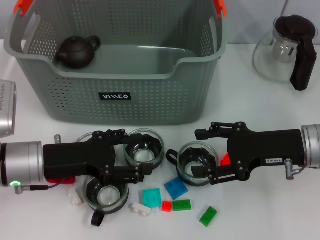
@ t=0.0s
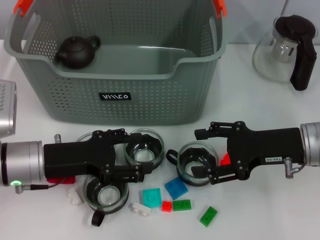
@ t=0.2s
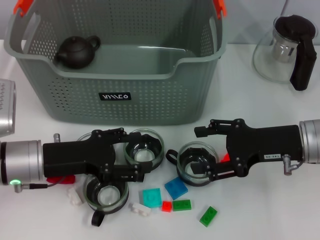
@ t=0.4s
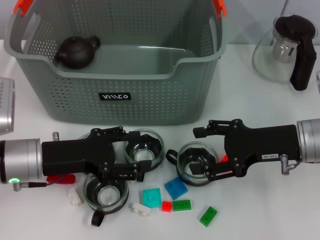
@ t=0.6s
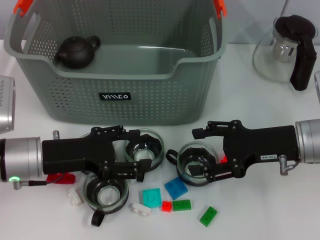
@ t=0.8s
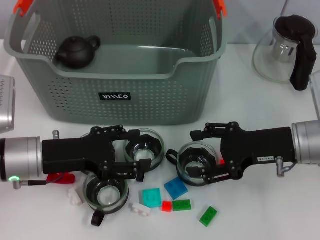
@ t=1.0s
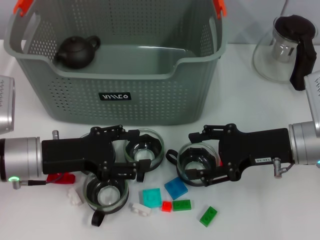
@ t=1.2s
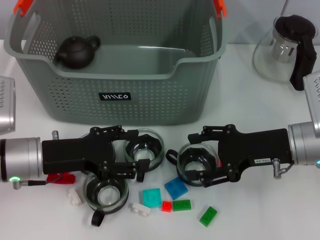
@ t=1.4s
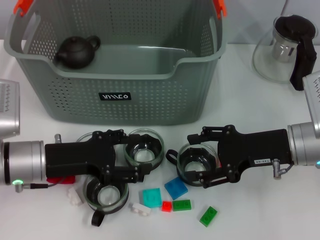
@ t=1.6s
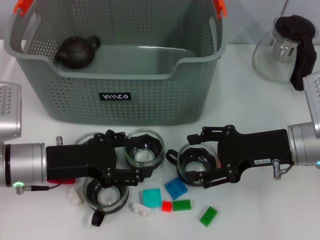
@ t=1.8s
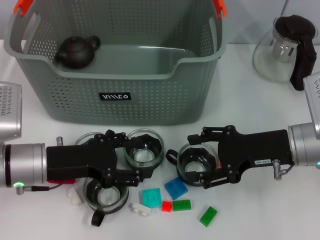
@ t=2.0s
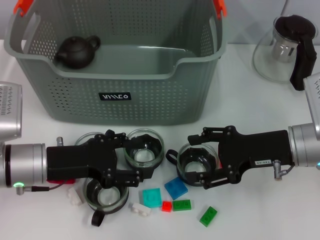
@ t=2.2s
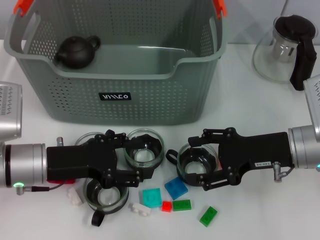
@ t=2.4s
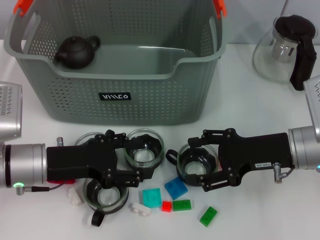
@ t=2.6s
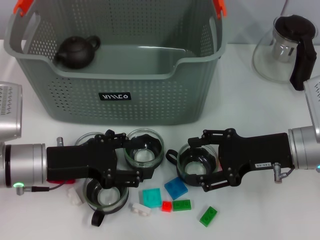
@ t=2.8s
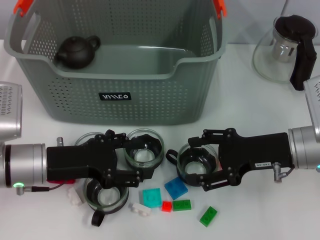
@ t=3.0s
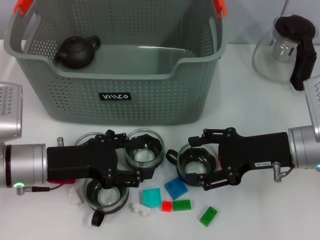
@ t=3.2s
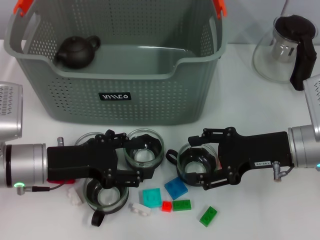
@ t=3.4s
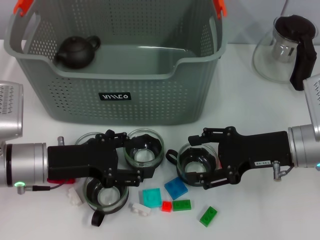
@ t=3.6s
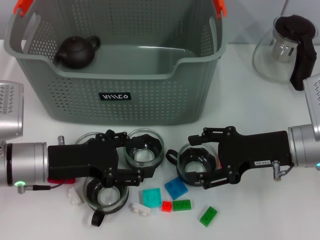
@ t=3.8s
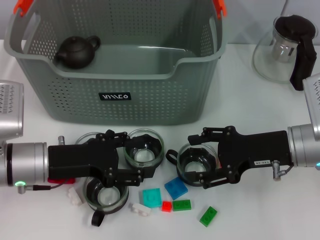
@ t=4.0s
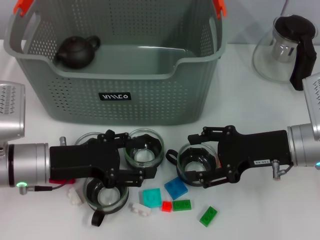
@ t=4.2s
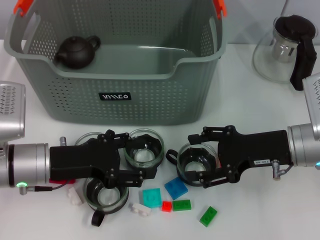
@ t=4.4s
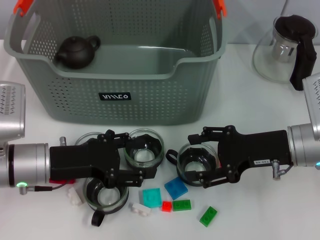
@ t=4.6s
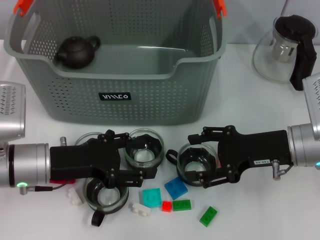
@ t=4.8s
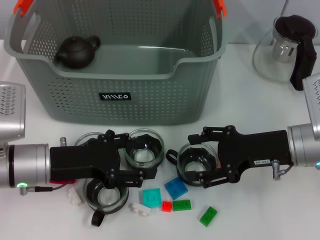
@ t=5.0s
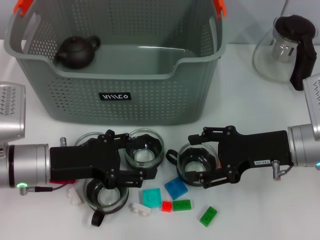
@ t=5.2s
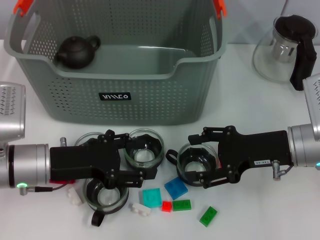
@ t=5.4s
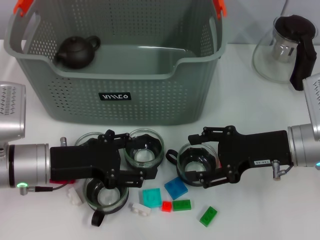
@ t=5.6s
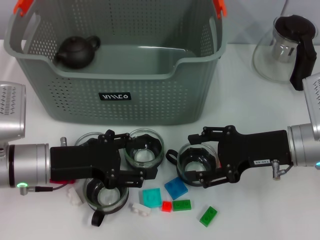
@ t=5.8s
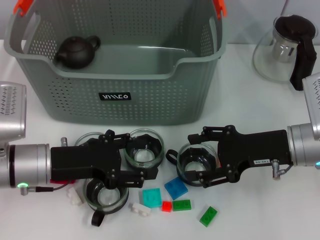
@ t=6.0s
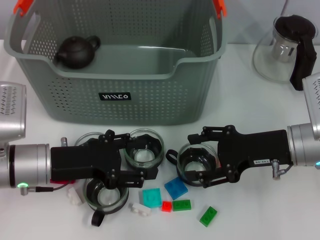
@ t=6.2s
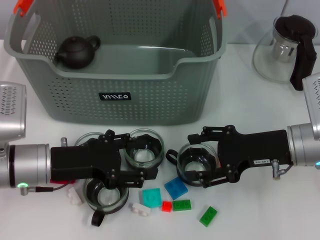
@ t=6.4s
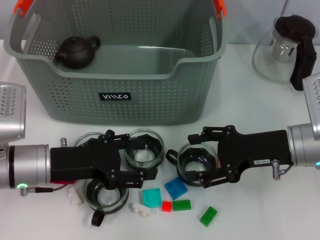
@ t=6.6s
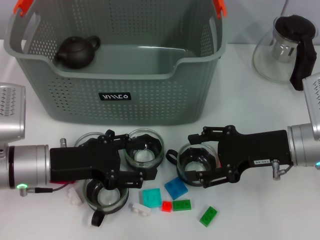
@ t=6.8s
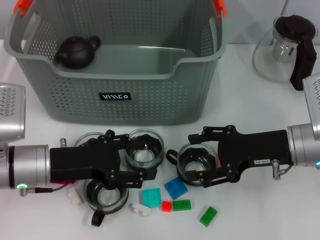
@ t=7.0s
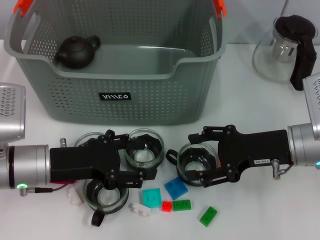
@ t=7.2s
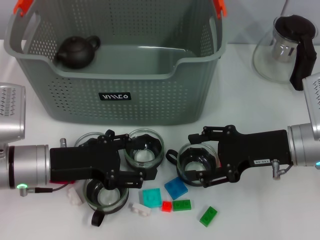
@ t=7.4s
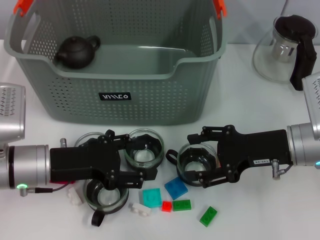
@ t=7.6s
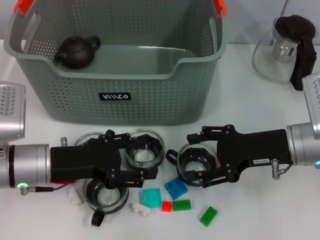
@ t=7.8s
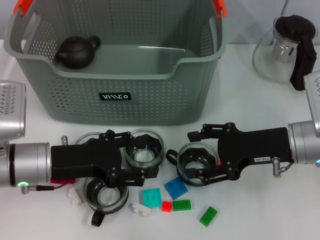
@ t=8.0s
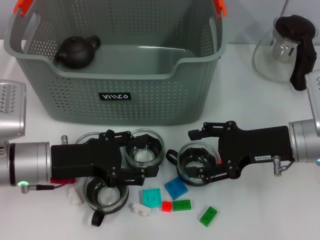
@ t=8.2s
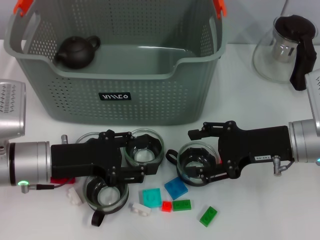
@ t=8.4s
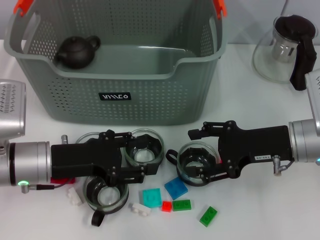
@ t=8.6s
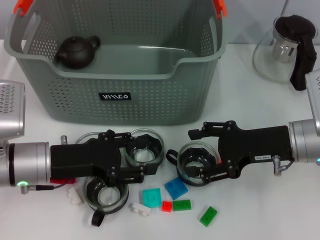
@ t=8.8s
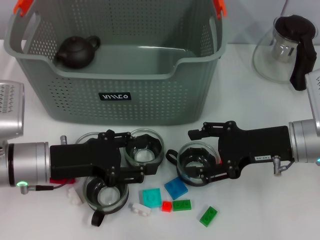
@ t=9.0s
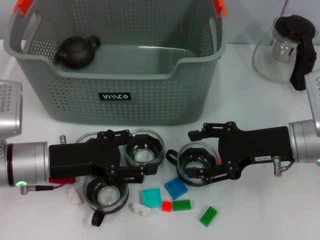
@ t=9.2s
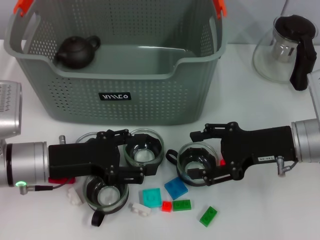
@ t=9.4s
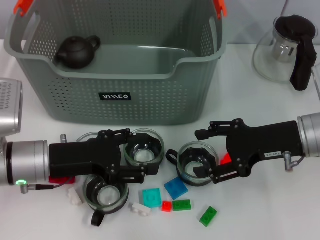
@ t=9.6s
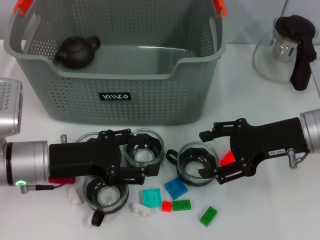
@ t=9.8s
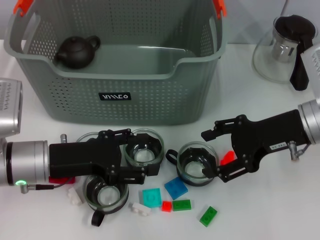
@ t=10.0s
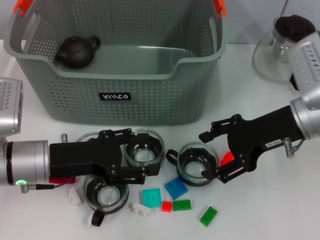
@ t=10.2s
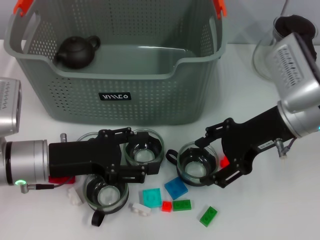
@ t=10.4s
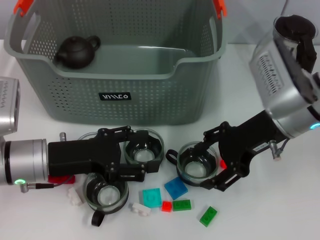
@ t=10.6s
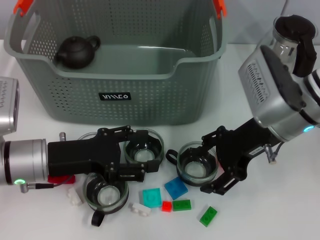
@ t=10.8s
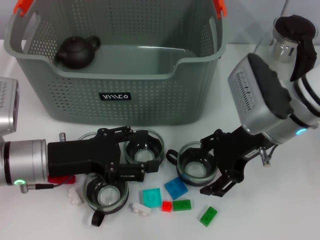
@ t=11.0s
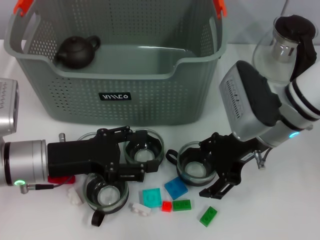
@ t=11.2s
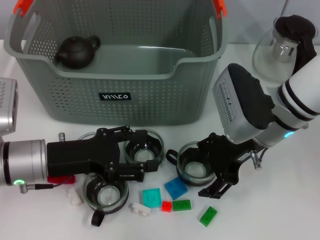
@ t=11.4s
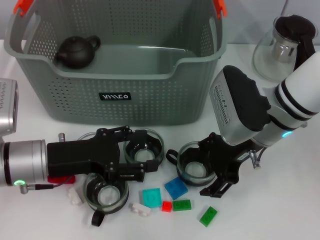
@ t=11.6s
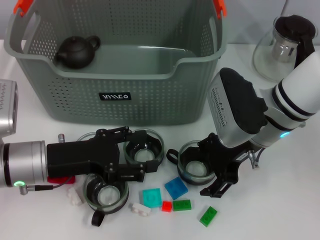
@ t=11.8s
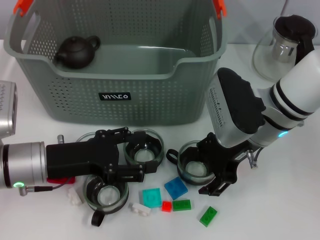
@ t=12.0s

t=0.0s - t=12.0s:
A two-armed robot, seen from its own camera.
Task of the whole recording: pick up the teacup on the table and place it into the storage bin, pick up the block on the table and place it into the storage bin.
t=0.0s - t=1.6s: There are only small adjustments of the grippers.
t=1.6s - t=9.0s: Both grippers stay about where they are.
t=9.0s - t=10.4s: The right gripper goes approximately 5 cm upward.
t=10.4s - t=12.0s: The right gripper heads to the left, covering about 5 cm.

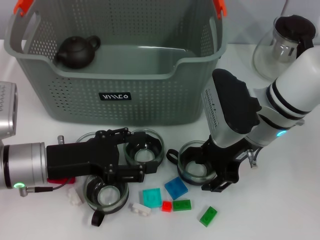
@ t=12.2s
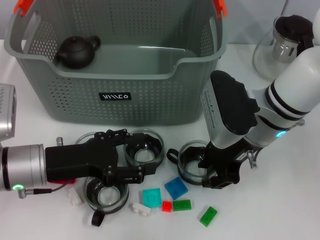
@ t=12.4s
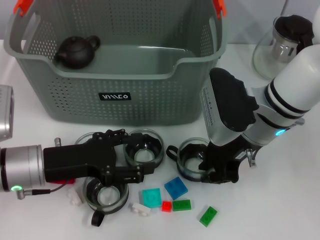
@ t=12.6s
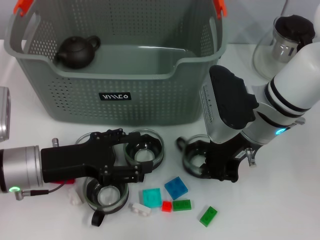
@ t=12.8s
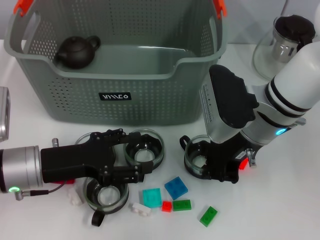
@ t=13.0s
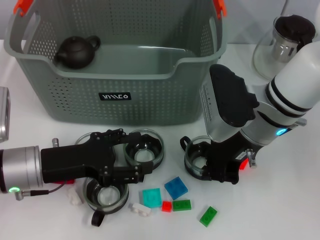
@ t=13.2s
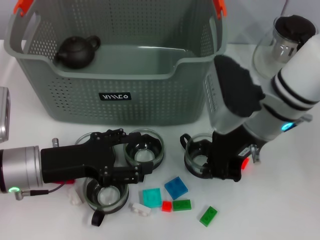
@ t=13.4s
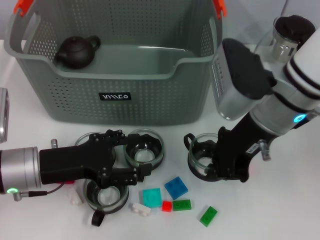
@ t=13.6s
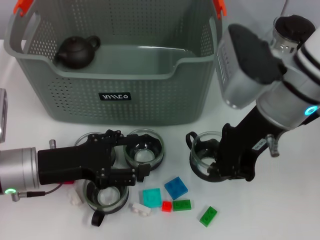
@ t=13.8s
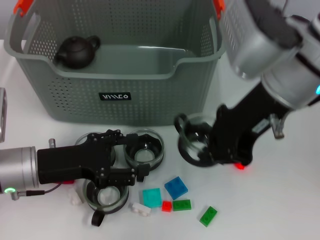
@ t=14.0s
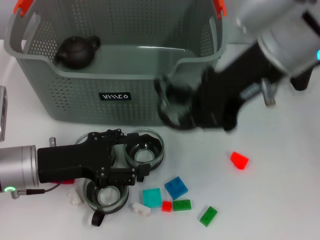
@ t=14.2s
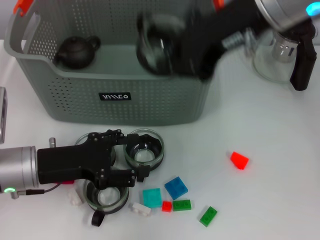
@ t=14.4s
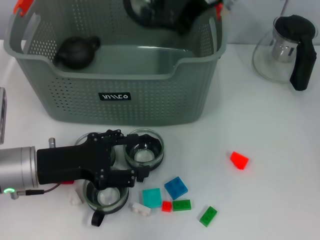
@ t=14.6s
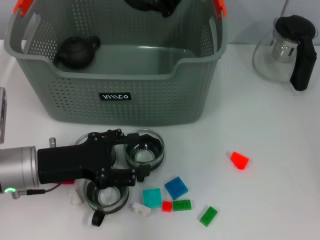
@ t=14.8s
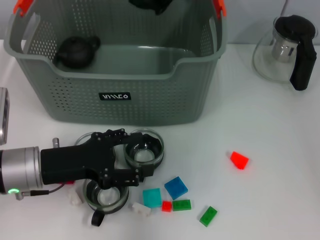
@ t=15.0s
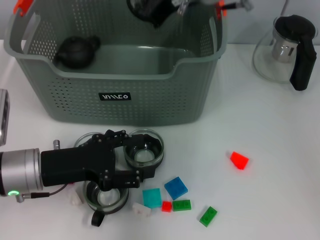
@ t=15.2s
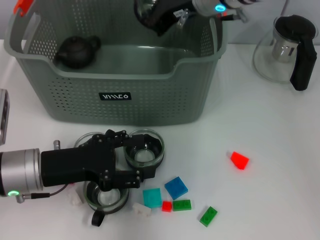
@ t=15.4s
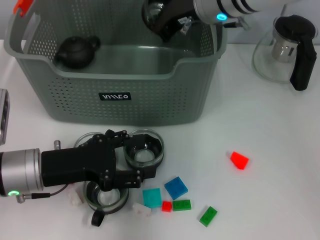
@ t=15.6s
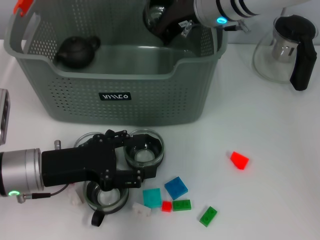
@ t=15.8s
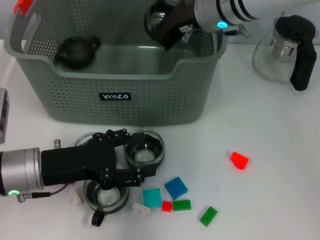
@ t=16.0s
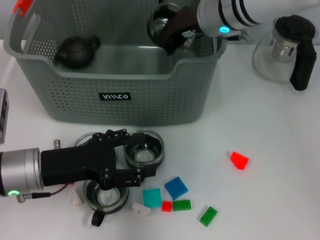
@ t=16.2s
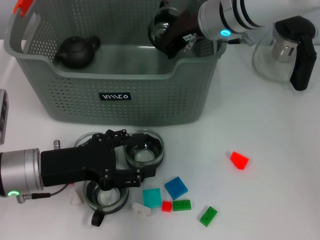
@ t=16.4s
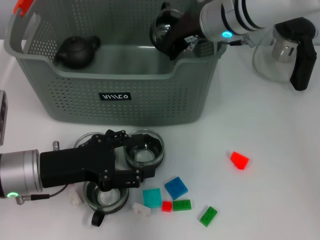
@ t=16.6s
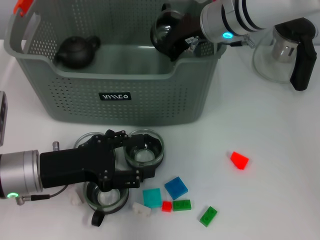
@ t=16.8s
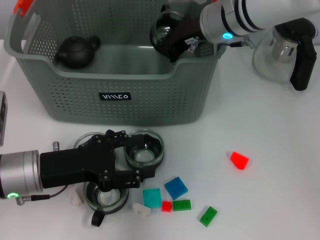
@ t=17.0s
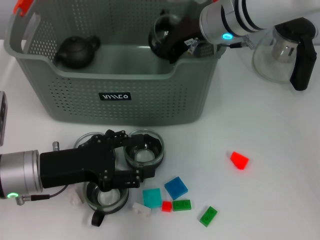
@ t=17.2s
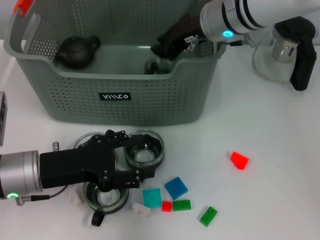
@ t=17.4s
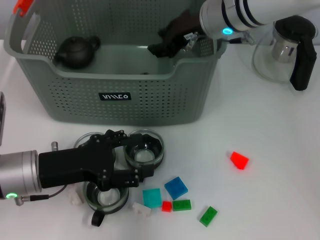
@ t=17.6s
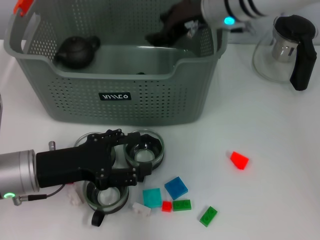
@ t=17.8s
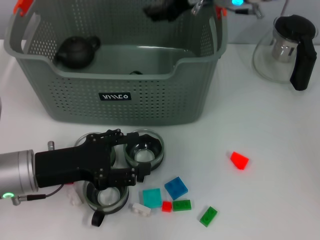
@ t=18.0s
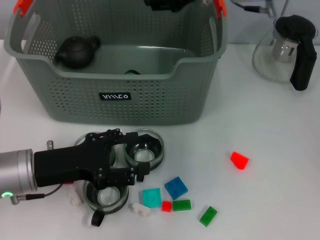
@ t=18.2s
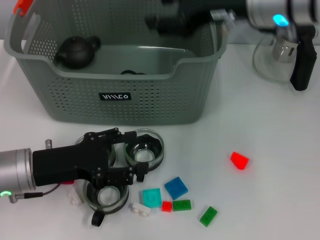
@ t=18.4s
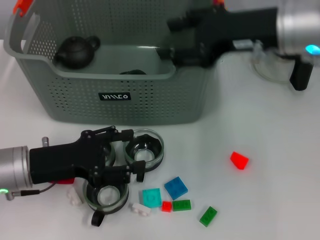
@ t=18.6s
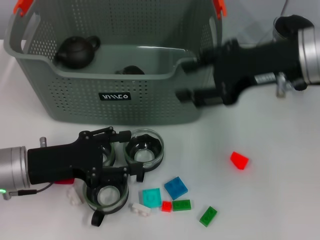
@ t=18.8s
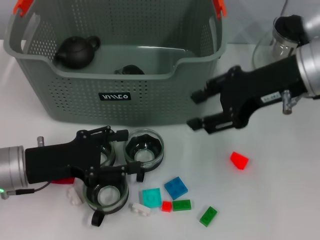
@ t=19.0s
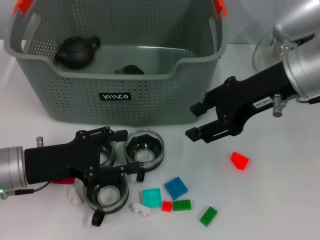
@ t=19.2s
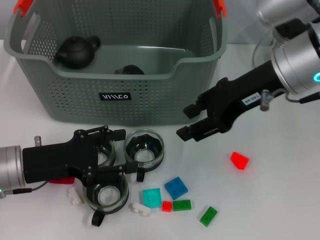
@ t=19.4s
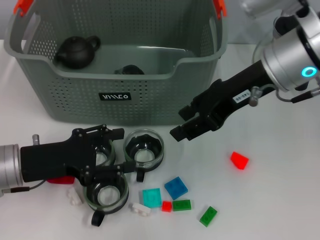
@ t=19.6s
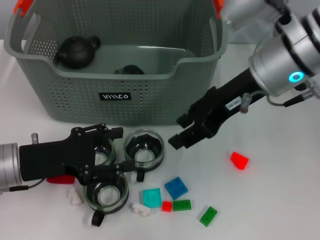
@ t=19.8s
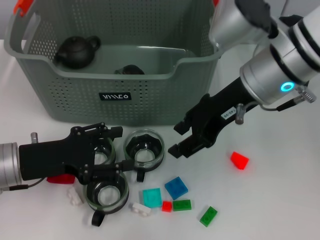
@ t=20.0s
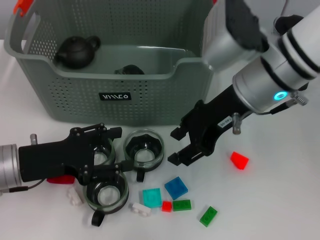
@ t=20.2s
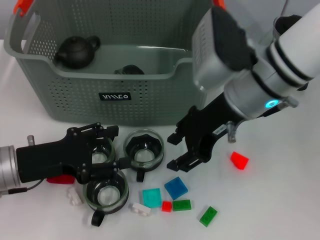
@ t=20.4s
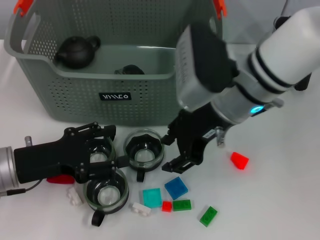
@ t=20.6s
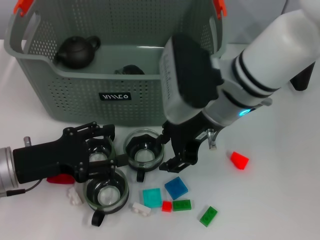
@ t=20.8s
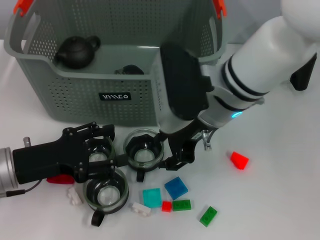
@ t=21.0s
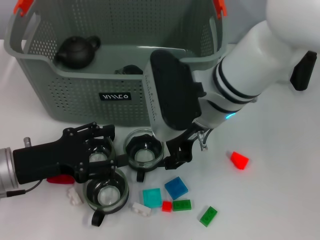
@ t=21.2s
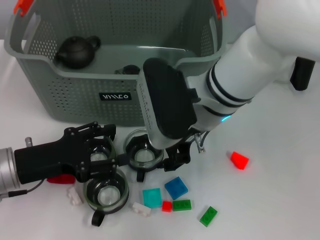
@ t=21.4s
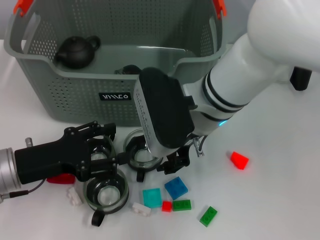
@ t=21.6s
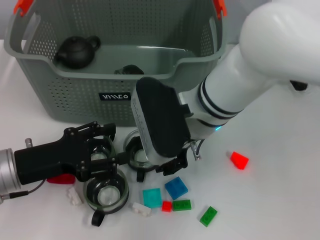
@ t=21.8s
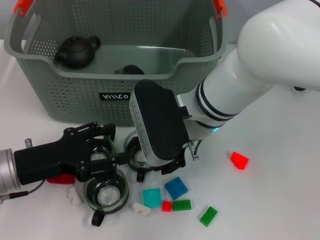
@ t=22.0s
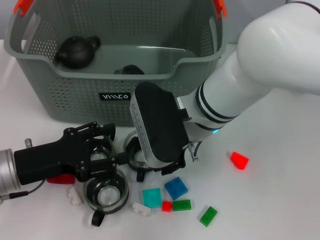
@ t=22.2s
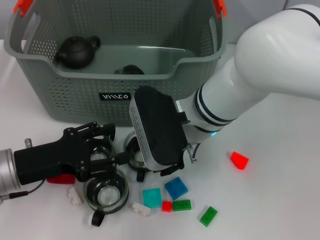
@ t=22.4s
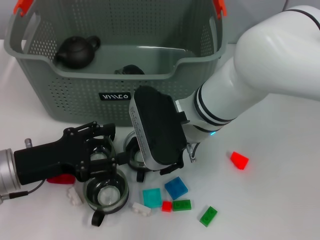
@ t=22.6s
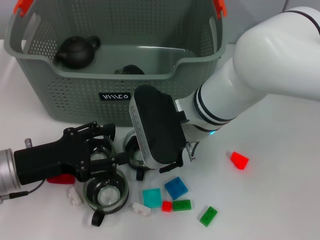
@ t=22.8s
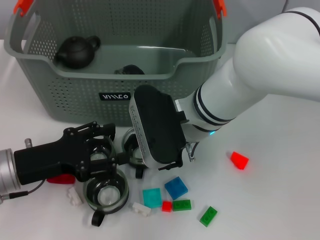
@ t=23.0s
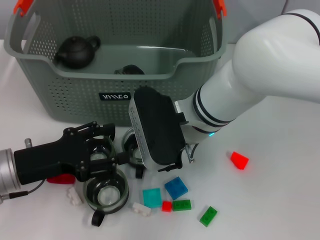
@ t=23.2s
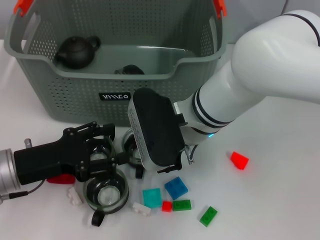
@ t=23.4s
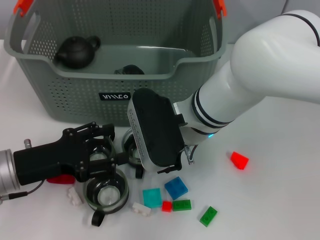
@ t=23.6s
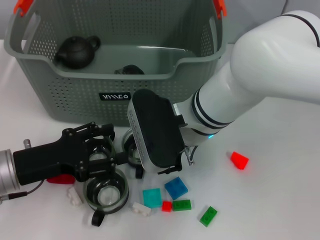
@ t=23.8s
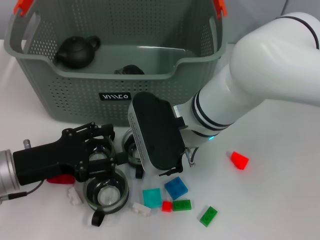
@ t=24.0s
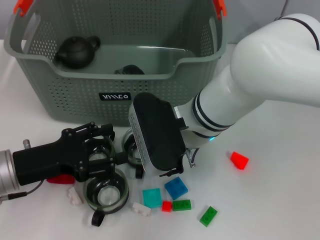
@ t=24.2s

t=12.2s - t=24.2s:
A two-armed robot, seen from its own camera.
Task of the whole recording: pick up the teacup on the table and place it into the storage bin, pick up the block on the table and place it into the storage bin.
Step, t=13.2s - t=17.4s: Place the cup in the storage box with right gripper.
t=12.2s - t=13.8s: The right gripper heads upward, covering approximately 10 cm, and closes up.
t=13.8s - t=15.2s: The right gripper travels forward and to the left by roughly 15 cm.
t=15.2s - t=16.6s: The right gripper goes approximately 5 cm downward.
t=16.6s - t=18.2s: The right gripper heads upward, covering approximately 5 cm, and opens its fingers.
t=18.2s - t=19.8s: The right gripper travels backward by roughly 5 cm.
t=19.8s - t=21.2s: The right gripper is displaced to the left by some 10 cm.
t=21.2s - t=22.6s: The grippers move only a little.
t=22.6s - t=24.2s: Both grippers stay put.
